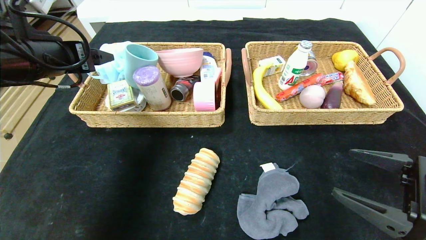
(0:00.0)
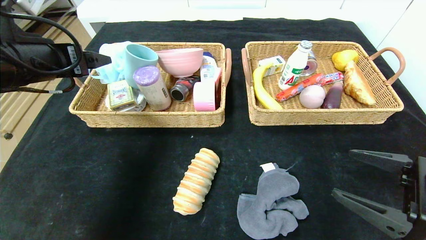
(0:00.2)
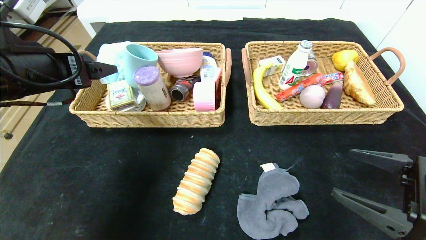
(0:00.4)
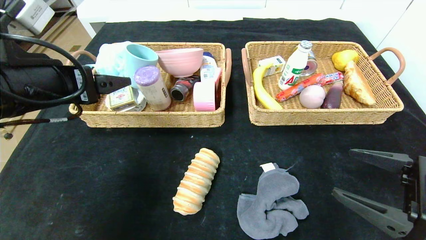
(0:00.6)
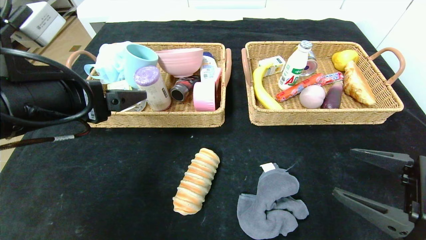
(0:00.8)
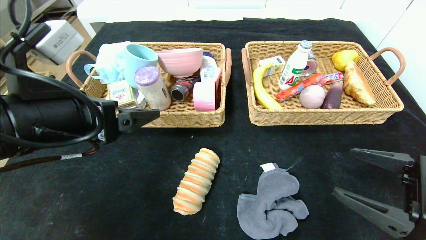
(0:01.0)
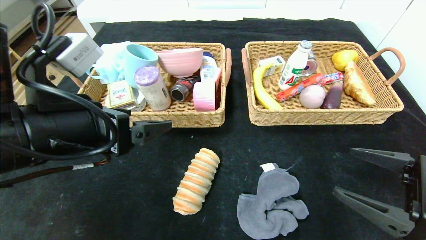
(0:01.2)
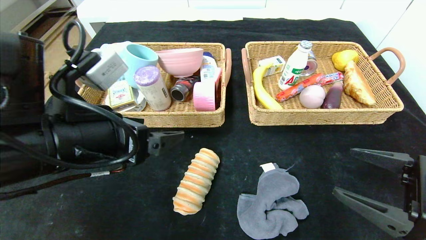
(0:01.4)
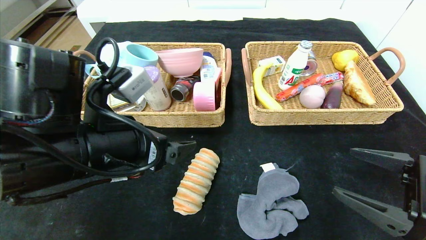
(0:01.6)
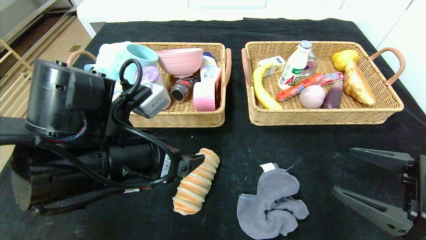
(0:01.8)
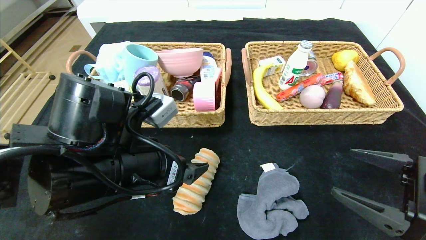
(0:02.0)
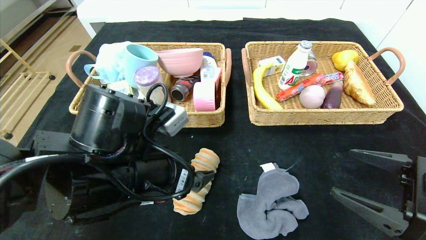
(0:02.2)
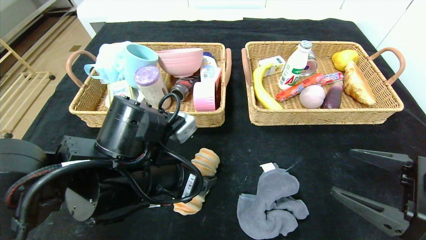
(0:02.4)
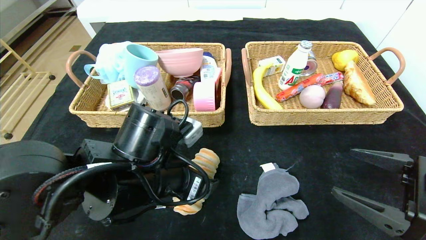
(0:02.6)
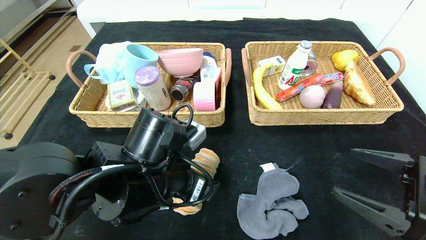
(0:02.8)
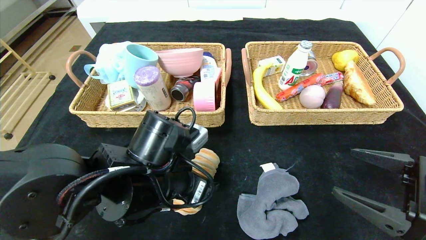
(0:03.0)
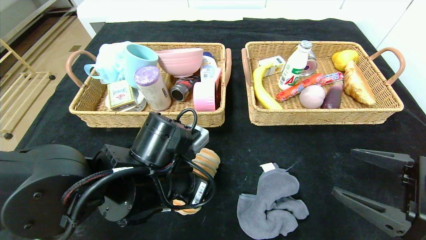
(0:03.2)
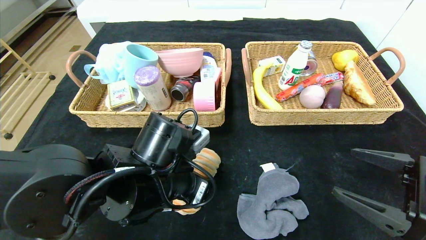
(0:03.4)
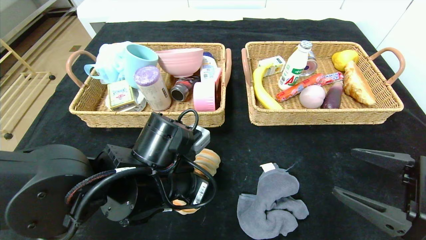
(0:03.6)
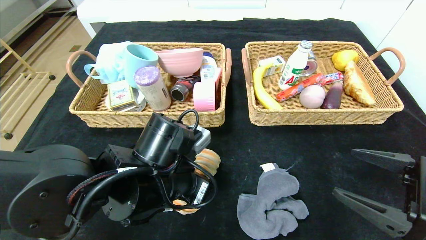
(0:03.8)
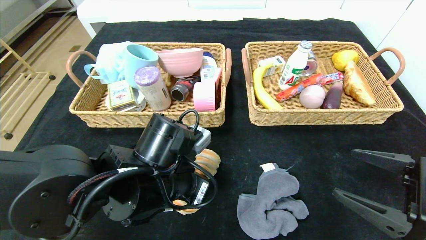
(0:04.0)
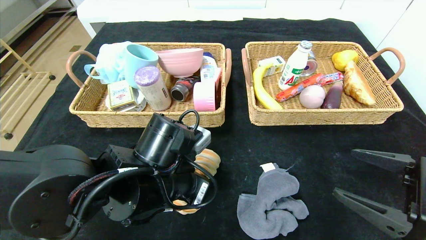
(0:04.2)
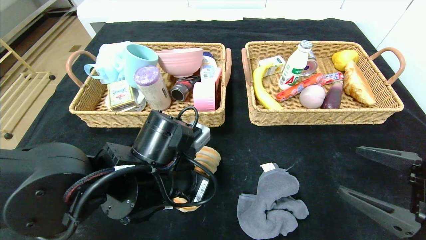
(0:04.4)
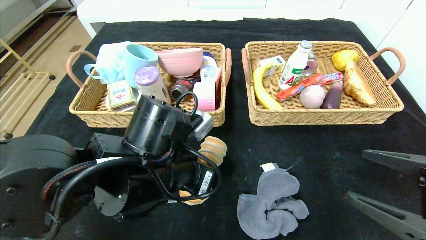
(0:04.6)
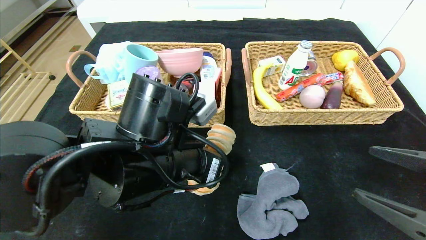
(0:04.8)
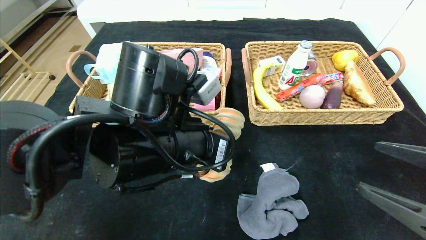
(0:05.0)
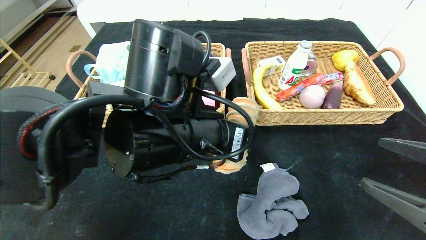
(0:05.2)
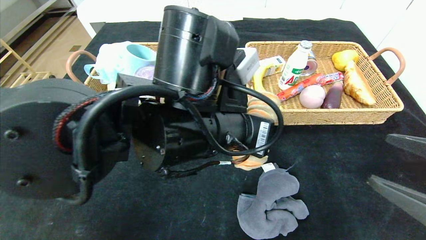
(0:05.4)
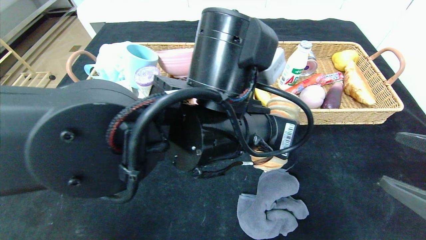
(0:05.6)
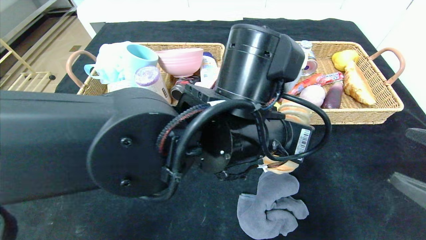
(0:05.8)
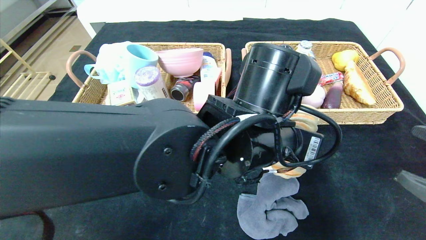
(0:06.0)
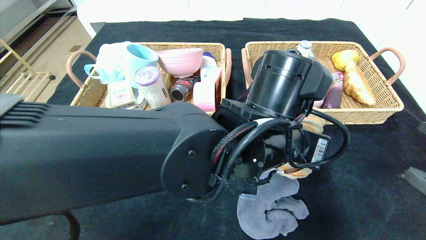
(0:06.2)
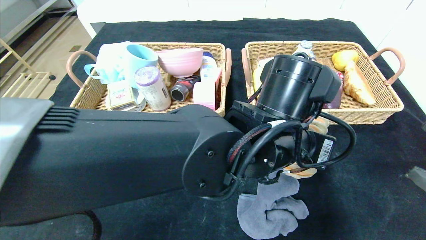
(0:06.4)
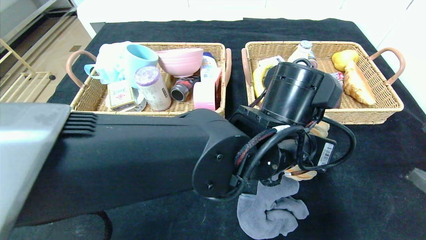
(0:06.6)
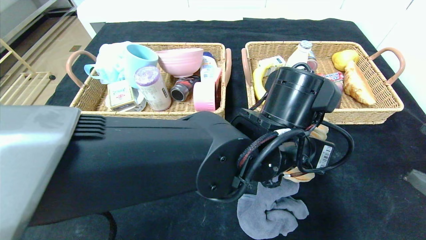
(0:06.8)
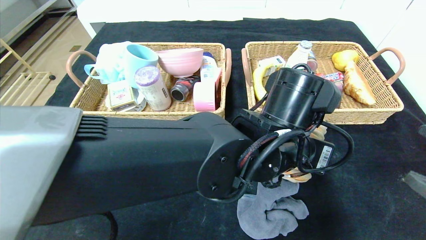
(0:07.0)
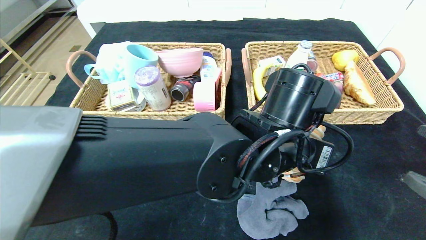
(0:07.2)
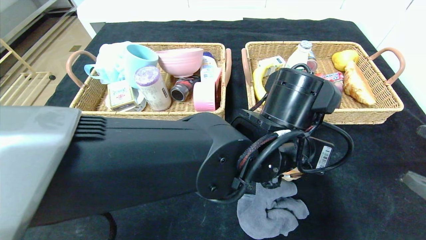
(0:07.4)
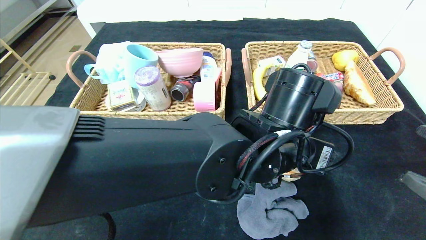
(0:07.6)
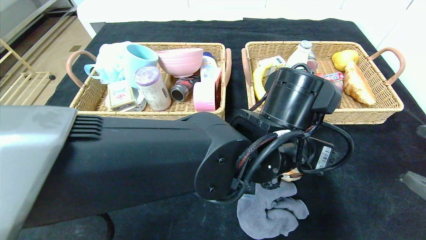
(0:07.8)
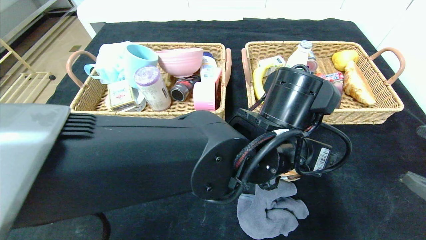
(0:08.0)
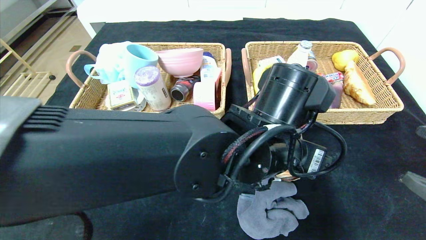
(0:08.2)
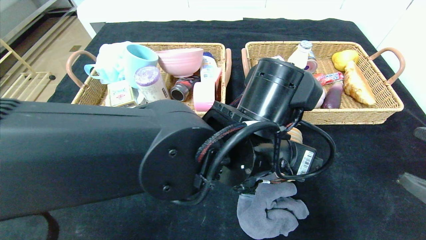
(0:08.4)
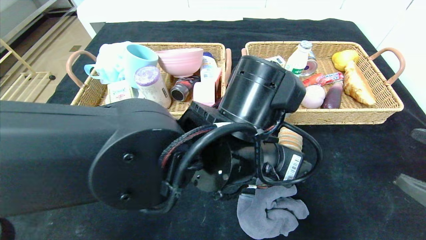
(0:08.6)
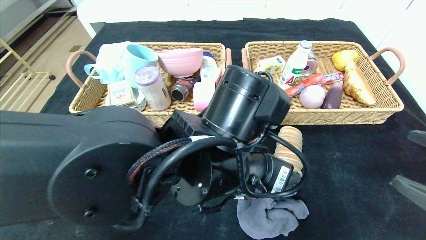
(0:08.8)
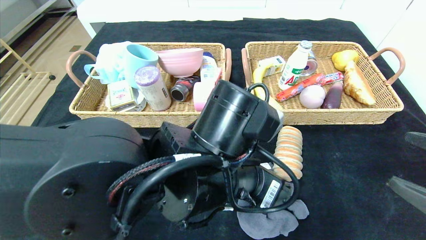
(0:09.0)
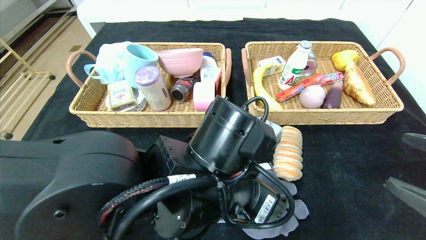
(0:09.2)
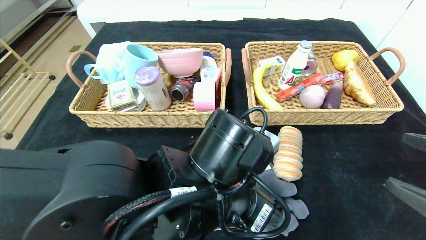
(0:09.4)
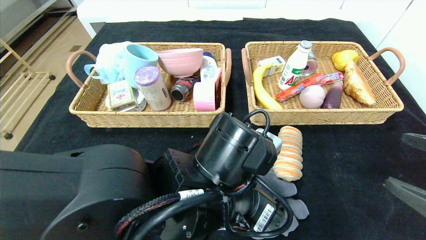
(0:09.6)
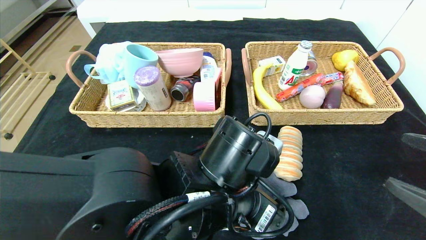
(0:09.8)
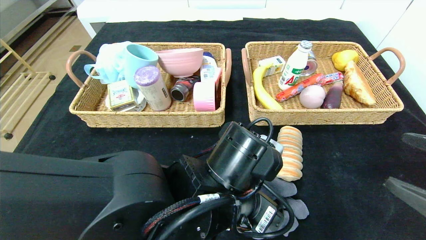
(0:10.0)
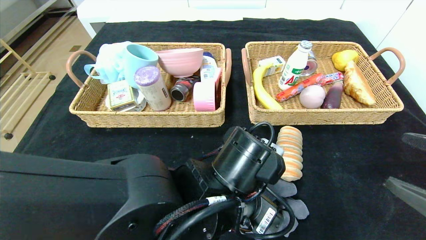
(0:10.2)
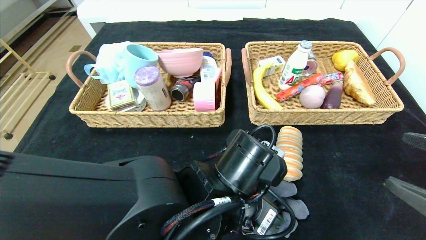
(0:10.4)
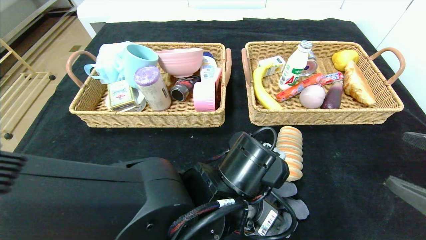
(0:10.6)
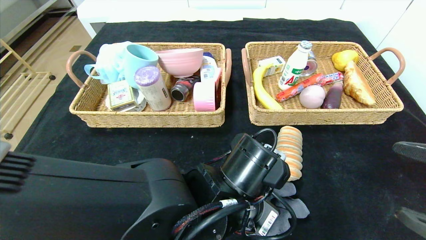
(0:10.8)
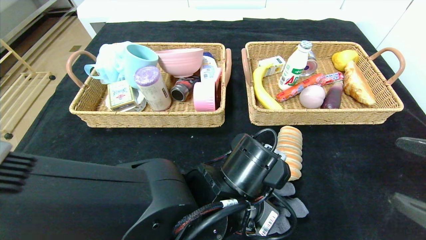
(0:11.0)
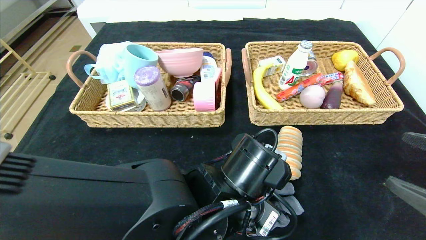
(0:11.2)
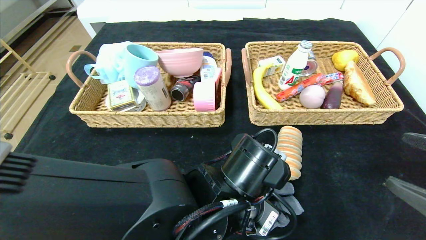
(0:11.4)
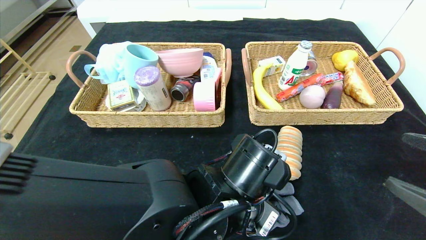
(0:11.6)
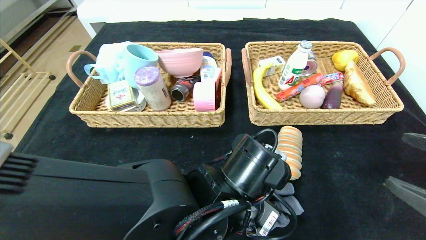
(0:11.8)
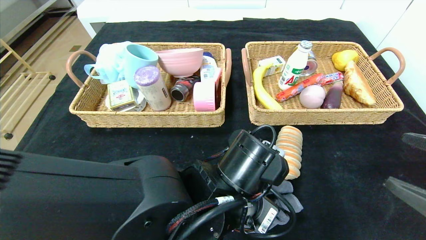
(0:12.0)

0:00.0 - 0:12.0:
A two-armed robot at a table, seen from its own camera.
Step, 0:01.6 - 0:08.8: Place the long bread in the center of the table.
0:00.0 - 0:01.6: The left gripper moves to the right, backward and downward, some 15 cm.
0:01.6 - 0:03.0: The left gripper shifts approximately 10 cm downward and to the right.
0:03.0 - 0:04.4: The left gripper closes its fingers.
0:04.4 - 0:06.0: The right gripper changes place by approximately 5 cm; the left gripper shifts approximately 15 cm to the right and upward.
0:06.0 - 0:07.6: The left gripper opens its fingers.
0:07.6 - 0:09.0: The left gripper is displaced to the left by some 10 cm.
0:09.0 - 0:10.4: The left gripper is displaced downward by roughly 5 cm.
0:10.4 - 0:12.0: The left gripper closes.

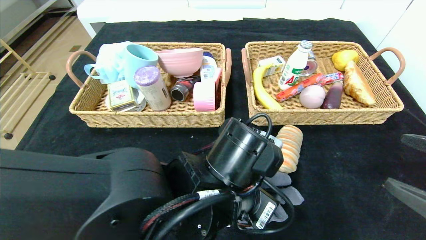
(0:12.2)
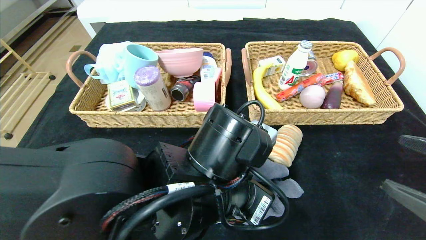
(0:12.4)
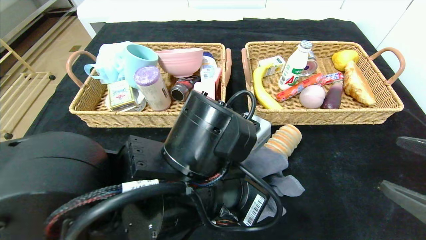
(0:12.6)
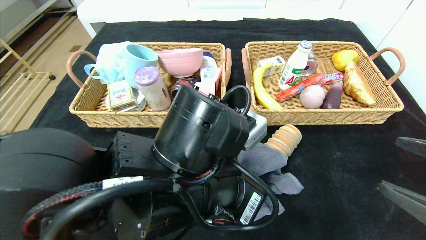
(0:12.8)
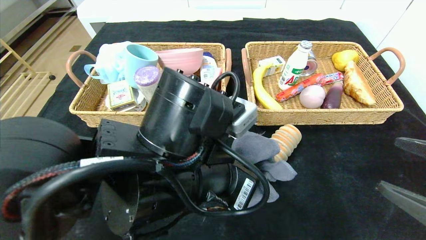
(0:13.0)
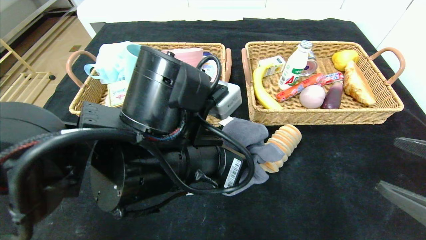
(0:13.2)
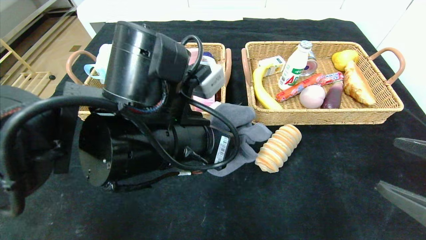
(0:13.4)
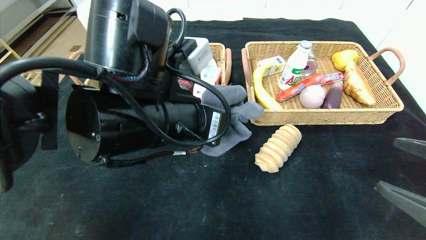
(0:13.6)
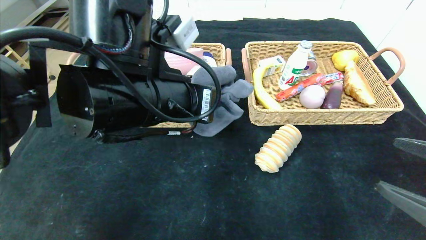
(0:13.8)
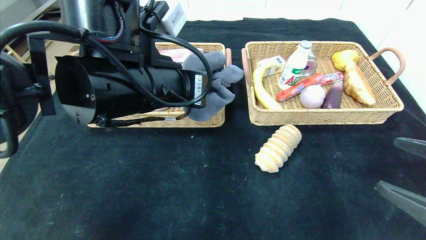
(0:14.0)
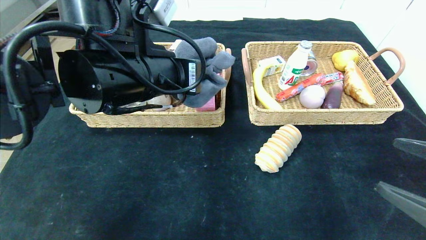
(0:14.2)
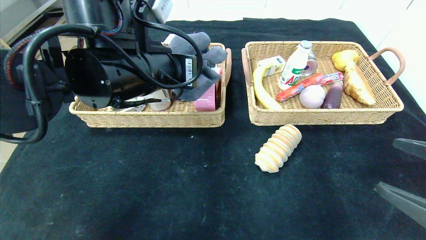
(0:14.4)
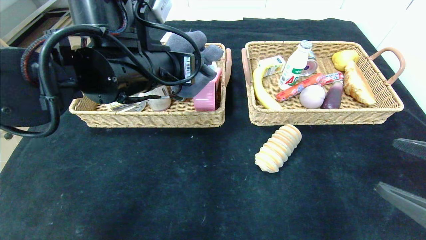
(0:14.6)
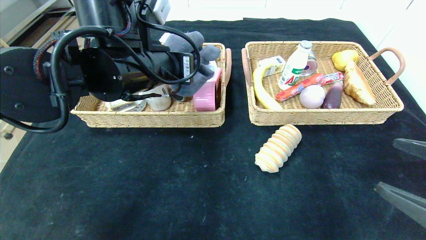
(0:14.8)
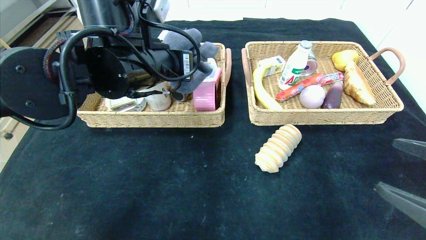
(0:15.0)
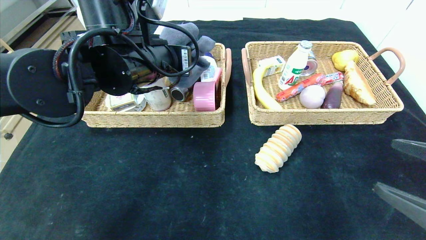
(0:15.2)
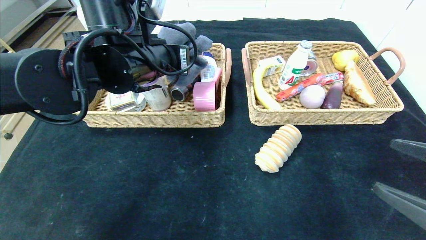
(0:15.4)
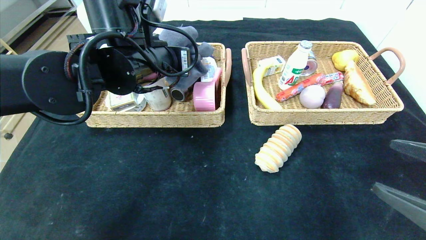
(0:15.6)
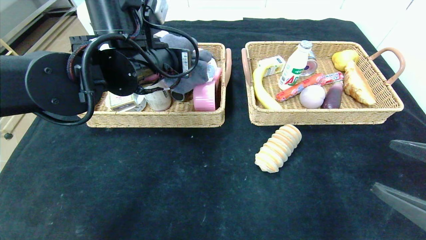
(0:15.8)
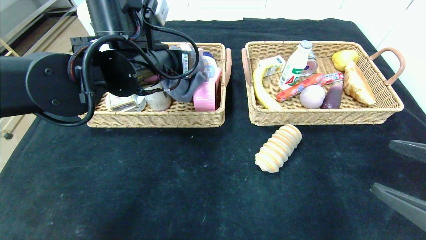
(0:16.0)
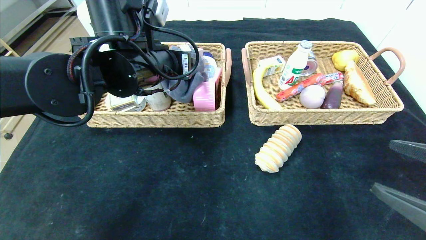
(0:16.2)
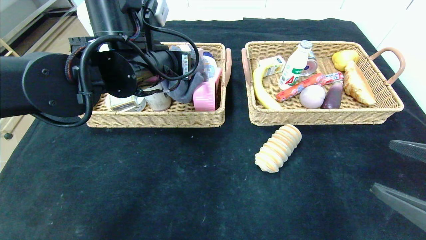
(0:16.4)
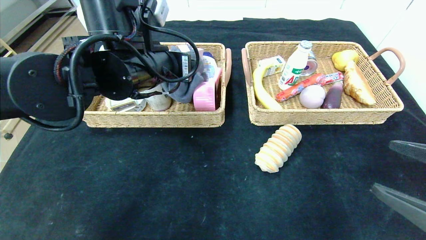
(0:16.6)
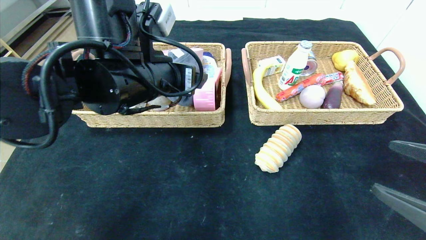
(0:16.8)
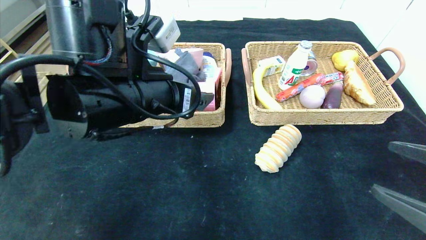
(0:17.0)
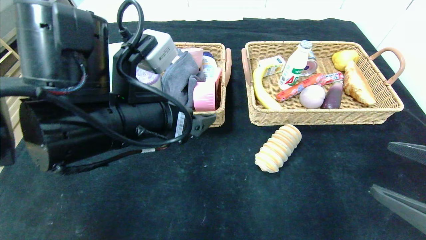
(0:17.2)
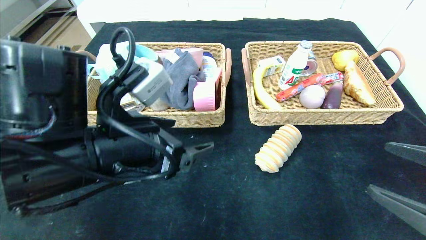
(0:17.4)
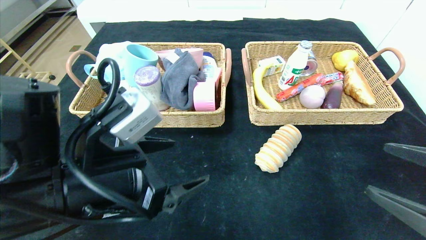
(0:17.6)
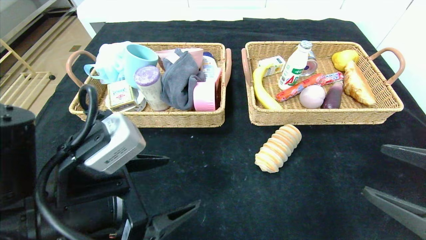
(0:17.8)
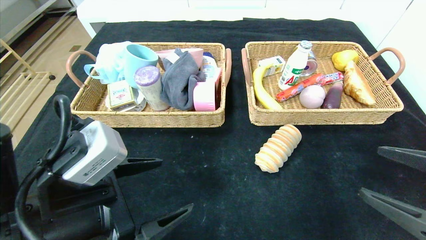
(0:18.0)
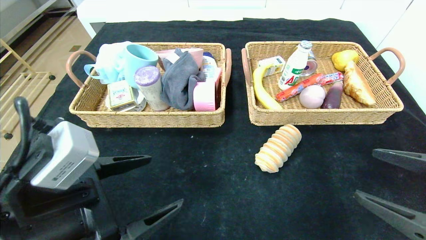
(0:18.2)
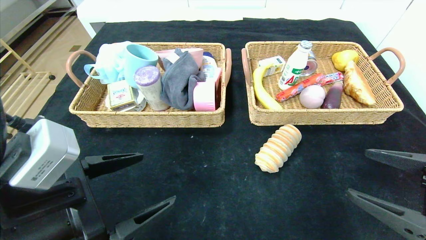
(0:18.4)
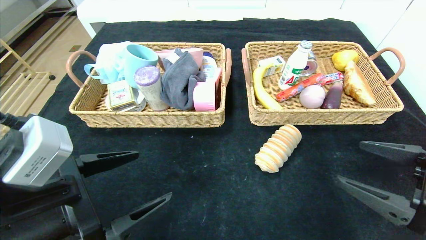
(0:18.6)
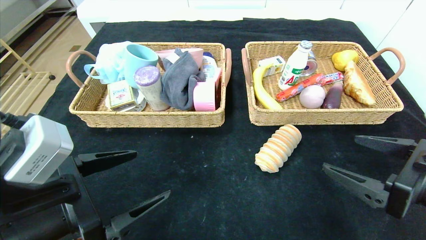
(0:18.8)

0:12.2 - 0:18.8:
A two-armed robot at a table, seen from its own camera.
Step, 0:12.2 - 0:17.4: Pick up the gray towel and put it in the left basket.
0:12.2 - 0:13.8: The left gripper heads upward and to the left, covering some 15 cm.
0:13.8 - 0:15.4: The left gripper shifts approximately 10 cm forward.
0:15.4 - 0:17.2: The left gripper shifts some 10 cm backward, and opens.
0:17.2 - 0:18.8: The left gripper is displaced to the left, backward and downward by about 15 cm, while the right gripper shifts by about 5 cm.
